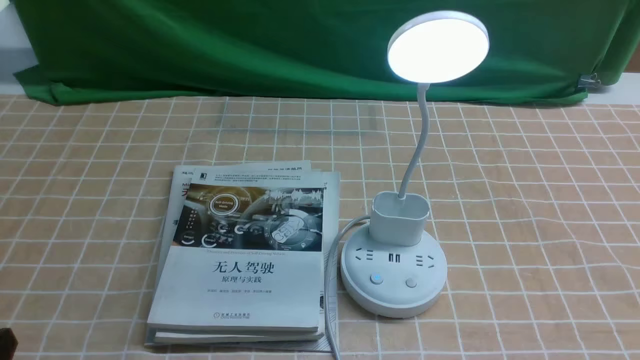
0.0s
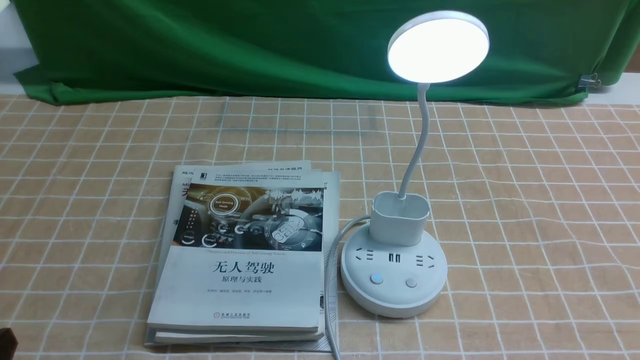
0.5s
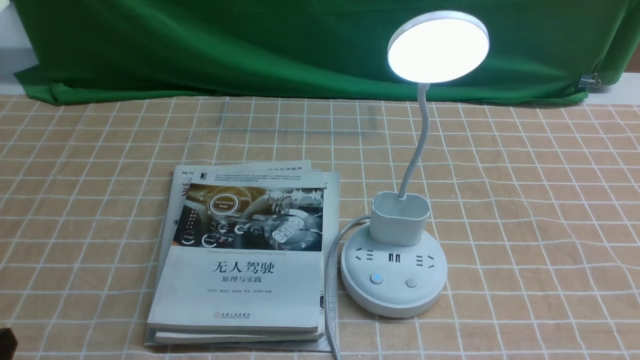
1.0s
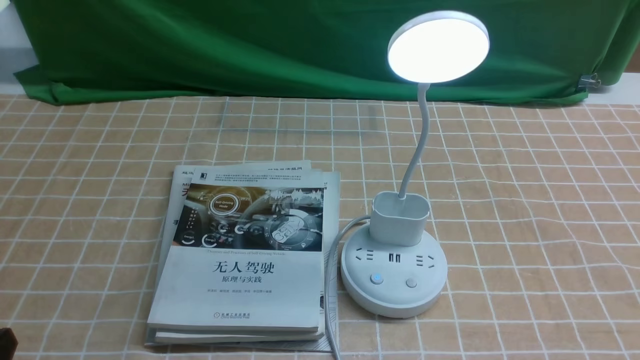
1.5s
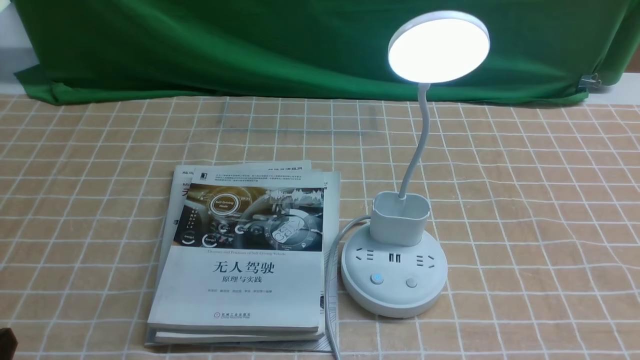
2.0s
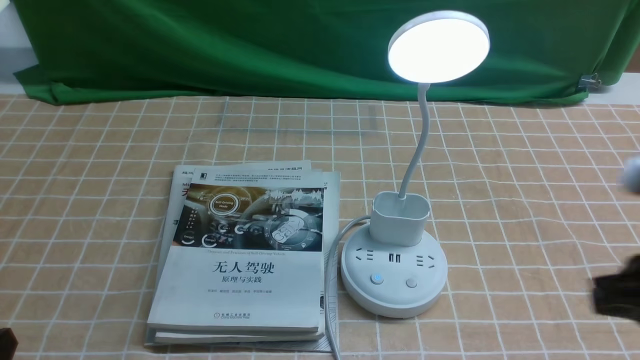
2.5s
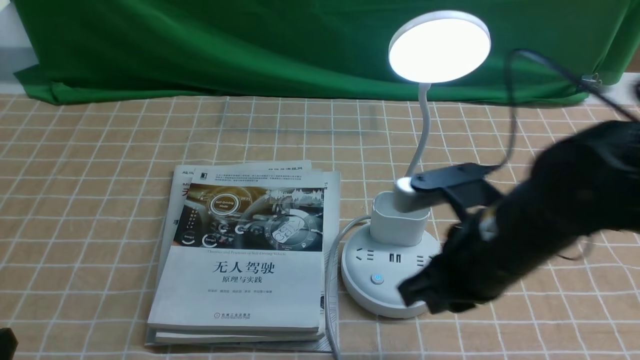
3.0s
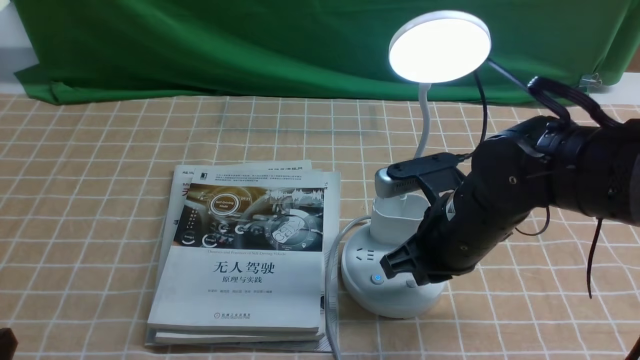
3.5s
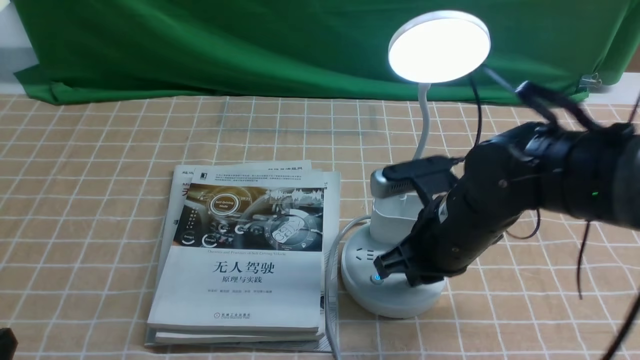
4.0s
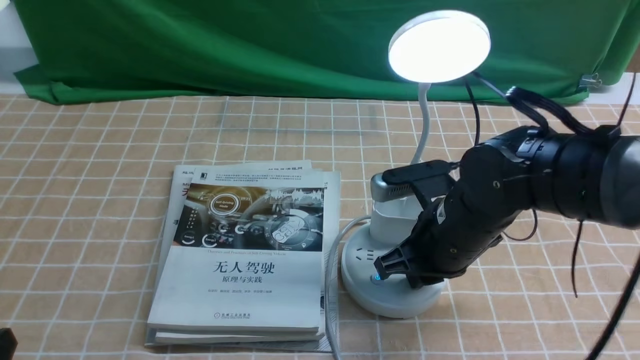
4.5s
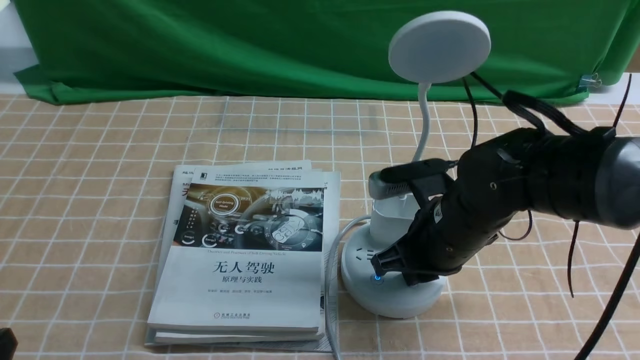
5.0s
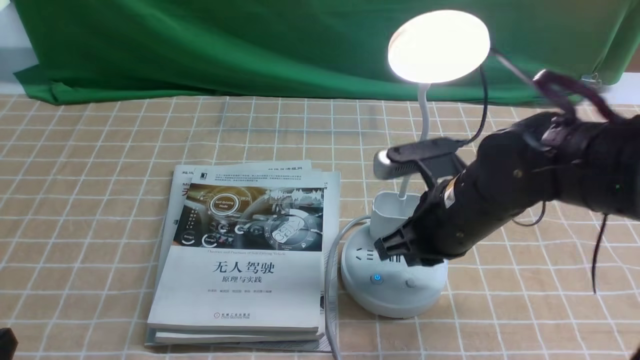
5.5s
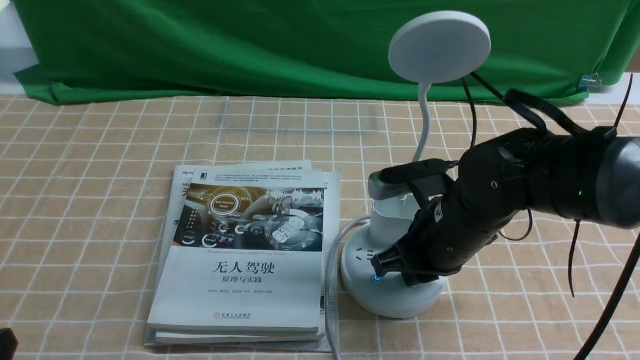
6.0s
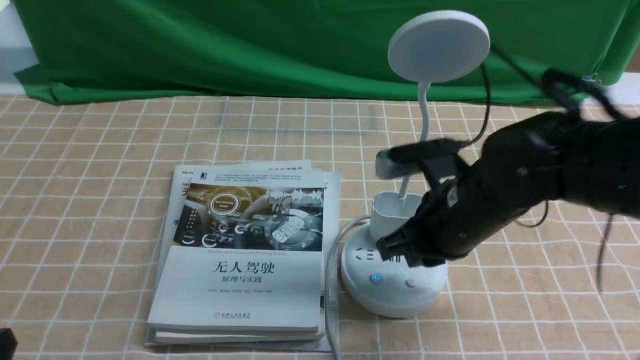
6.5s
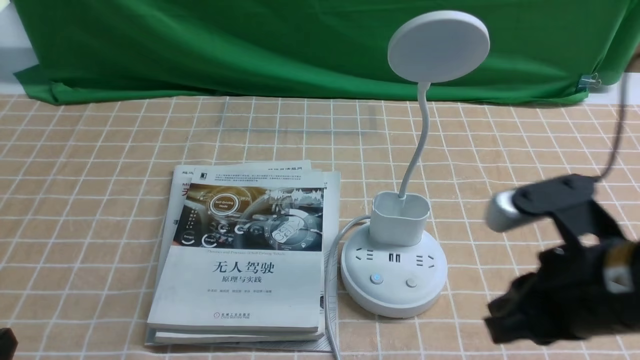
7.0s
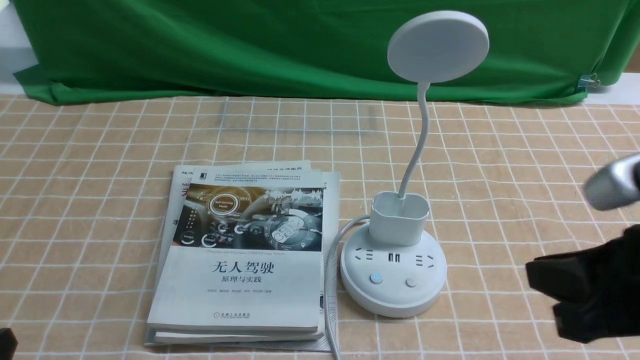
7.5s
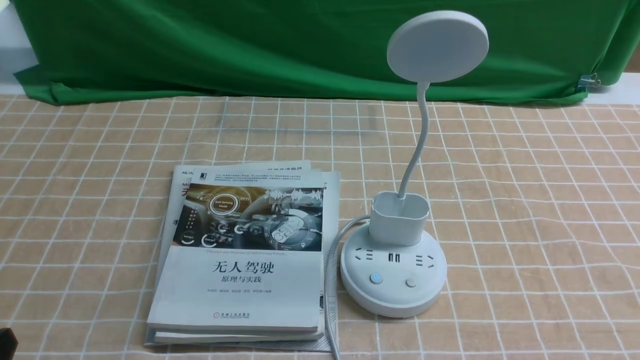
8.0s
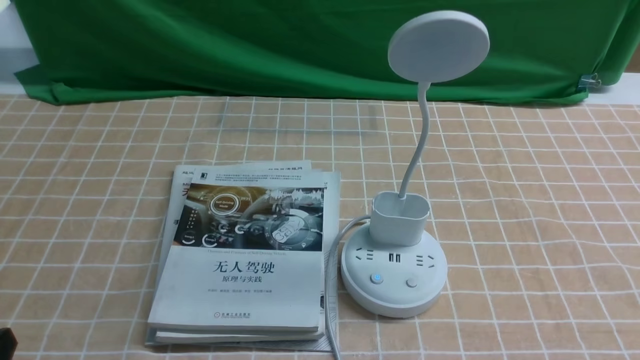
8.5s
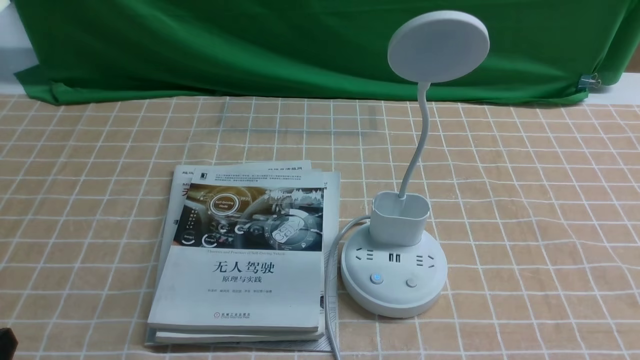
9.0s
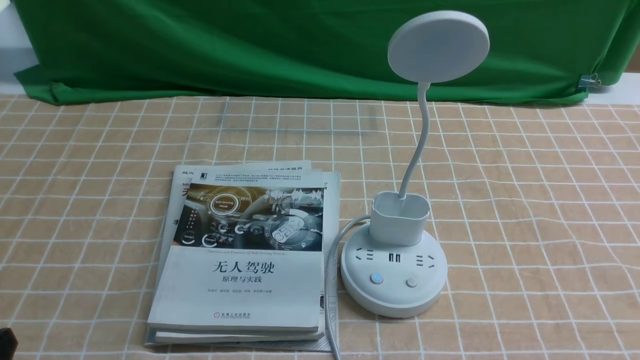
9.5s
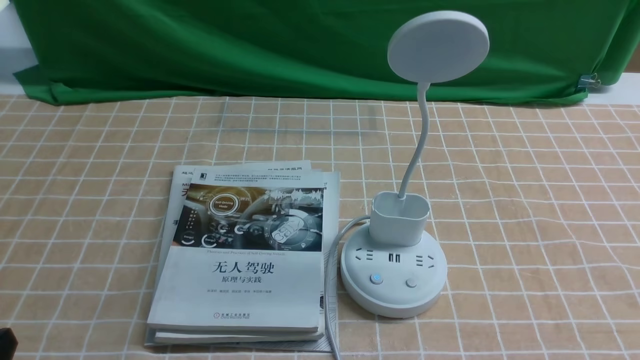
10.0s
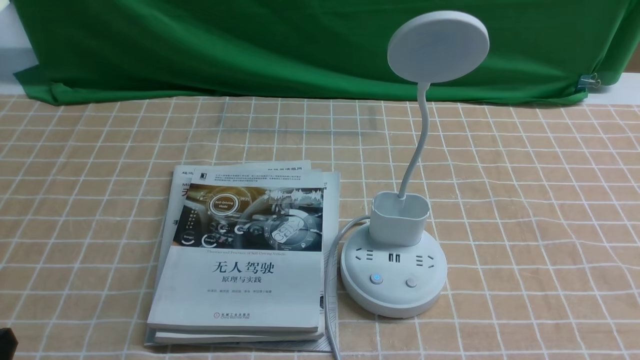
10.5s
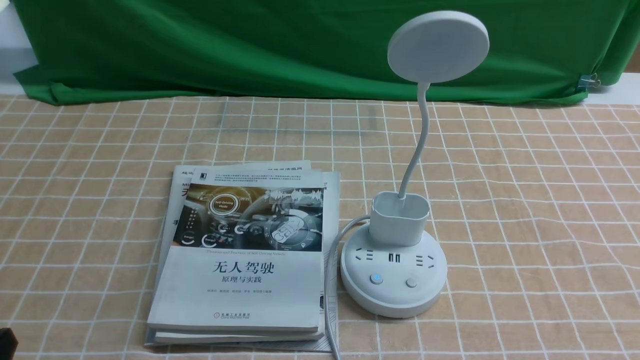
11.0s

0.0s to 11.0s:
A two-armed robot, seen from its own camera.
Task of the whole recording: turn off the desk lamp on the light coffee tablecloth by hand.
Step, 0.0s to 6.0s: use the right arm to press the button switch on the lamp holder.
2.0s to 3.5s: The right gripper goes approximately 25 cm forward and to the left.
3.5s to 5.5s: The grippers make only small movements.
5.5s to 7.5s: The right gripper shifts approximately 20 cm backward, to the right and upward.
7.5s to 9.0s: The right gripper heads downward, backward and to the right, covering some 15 cm.

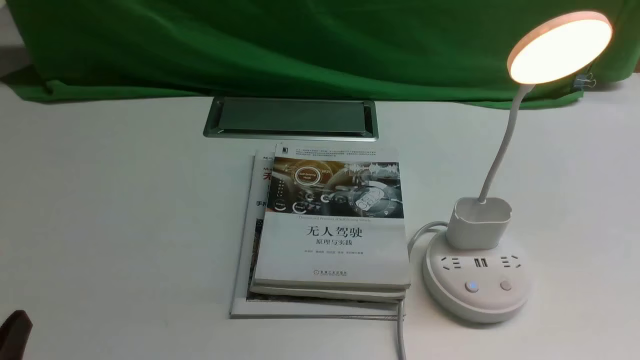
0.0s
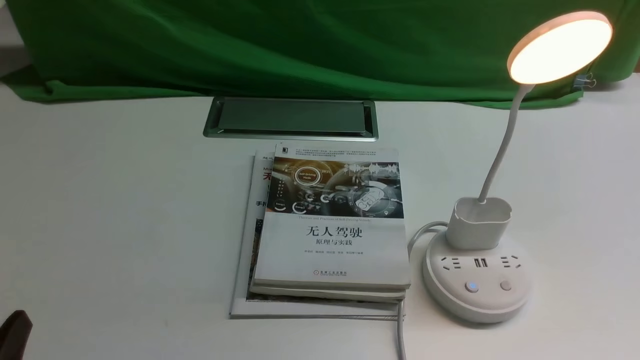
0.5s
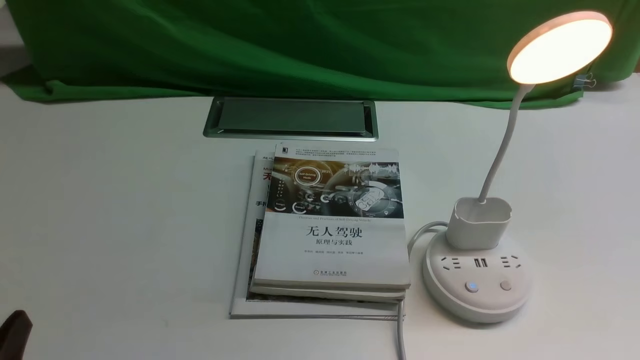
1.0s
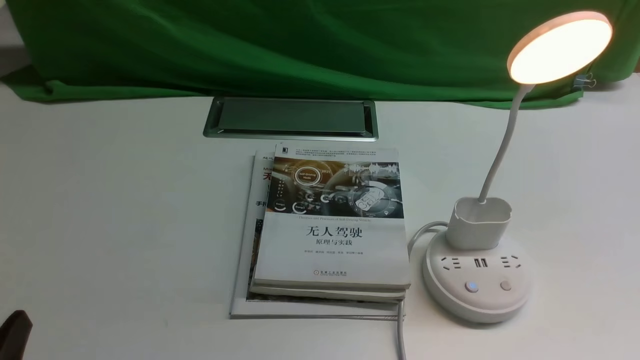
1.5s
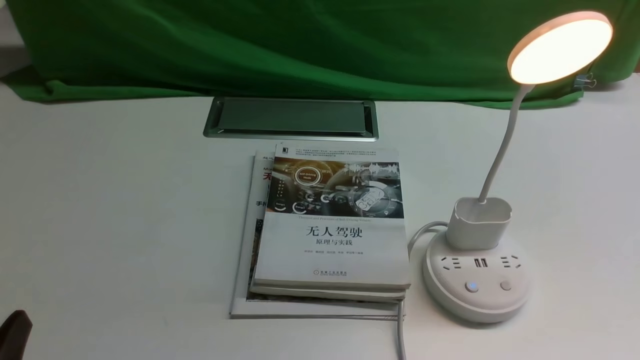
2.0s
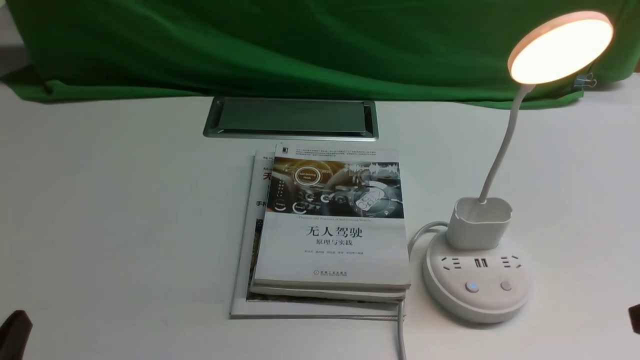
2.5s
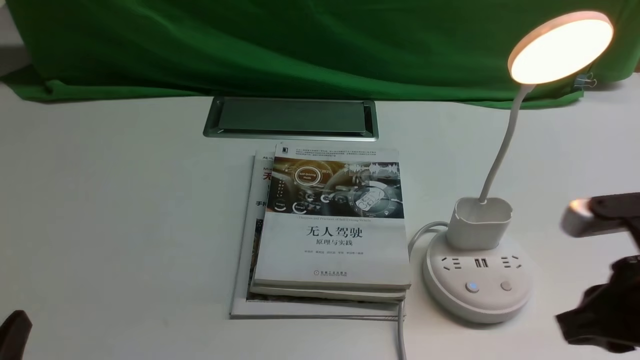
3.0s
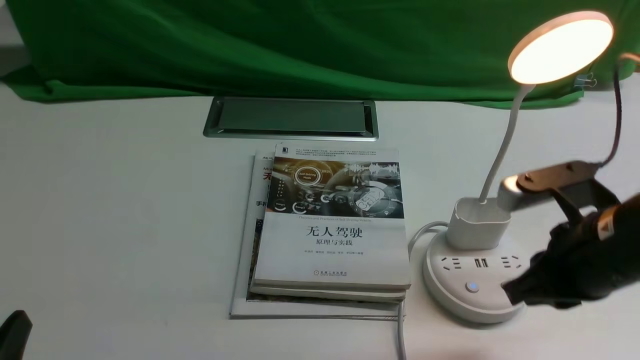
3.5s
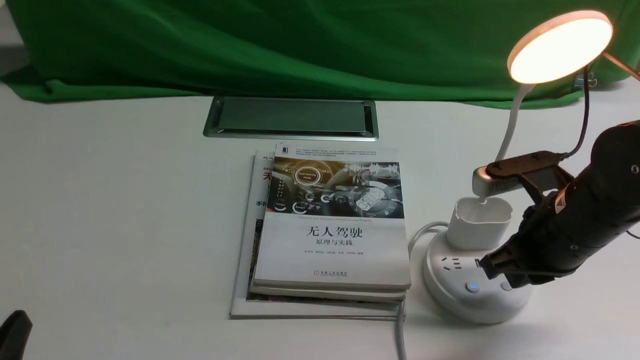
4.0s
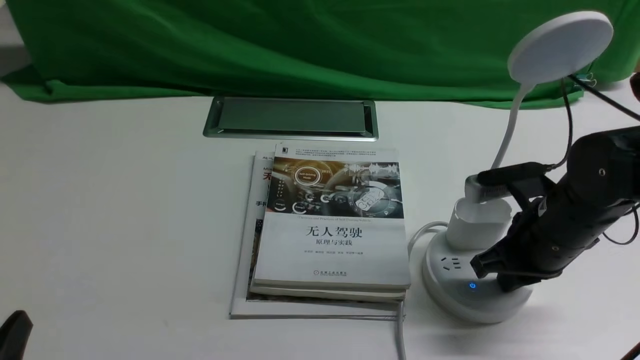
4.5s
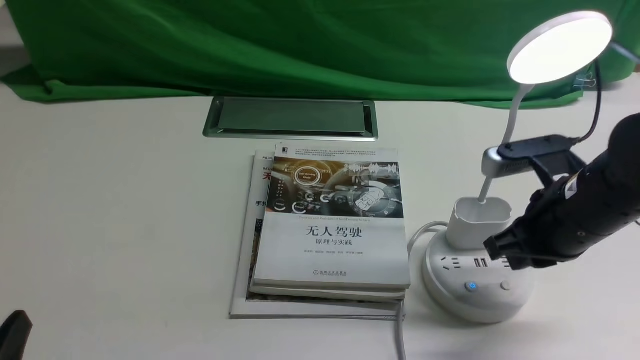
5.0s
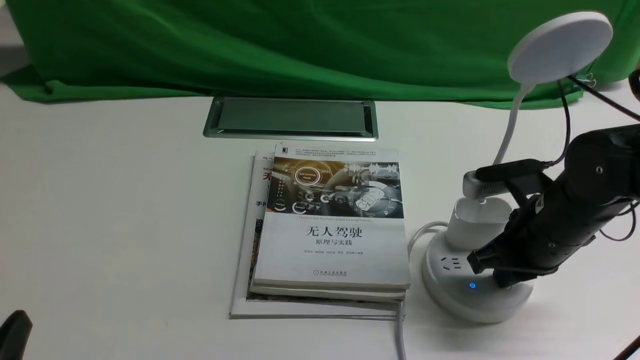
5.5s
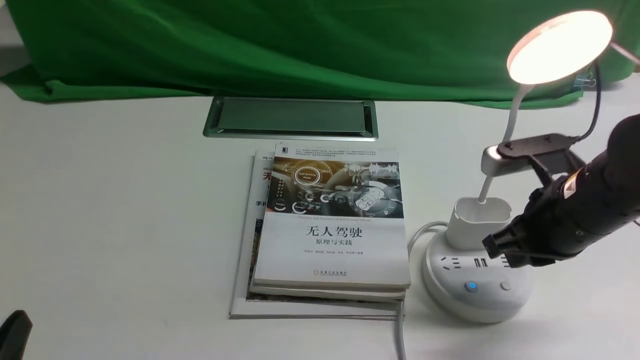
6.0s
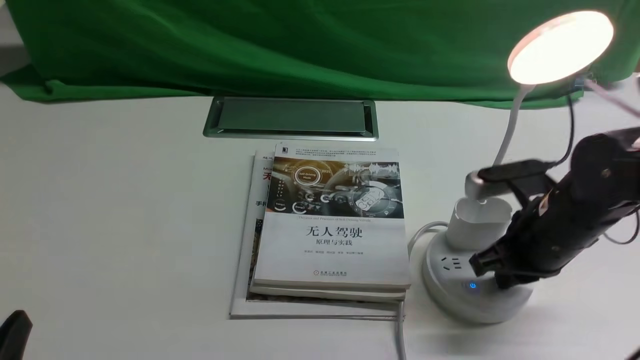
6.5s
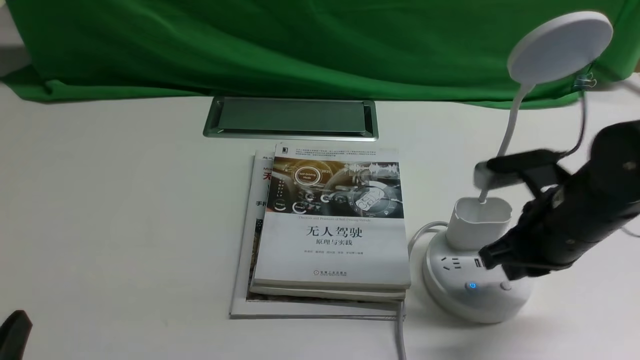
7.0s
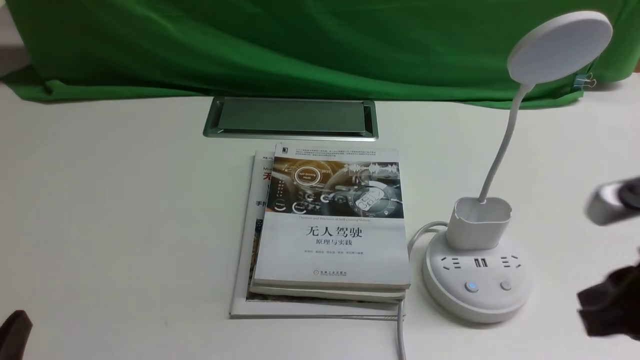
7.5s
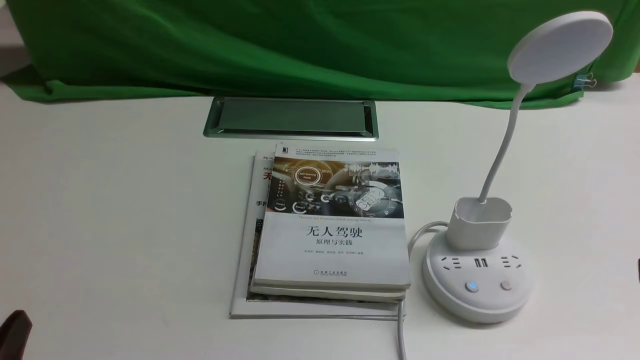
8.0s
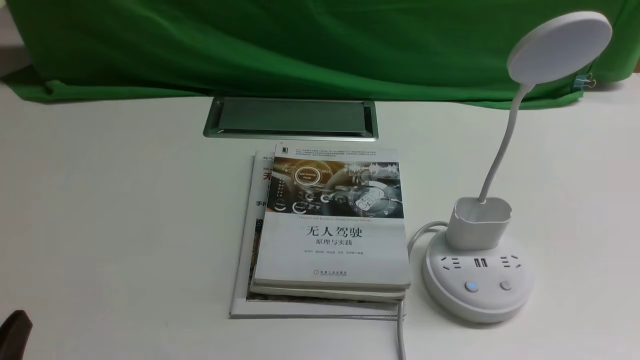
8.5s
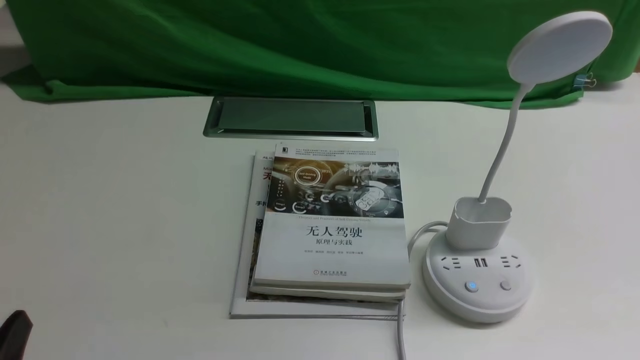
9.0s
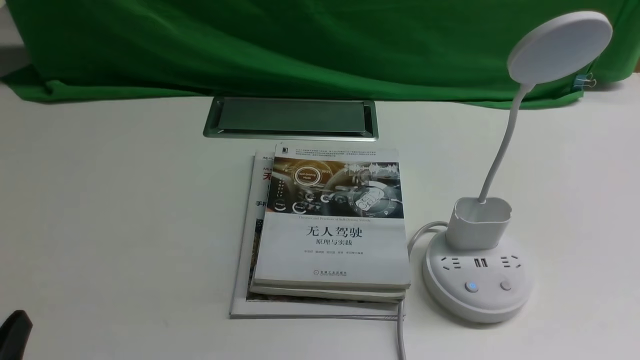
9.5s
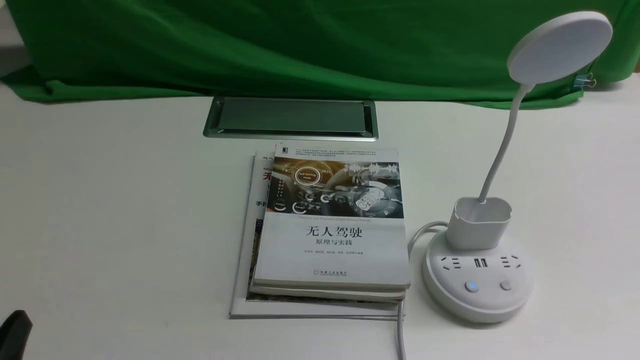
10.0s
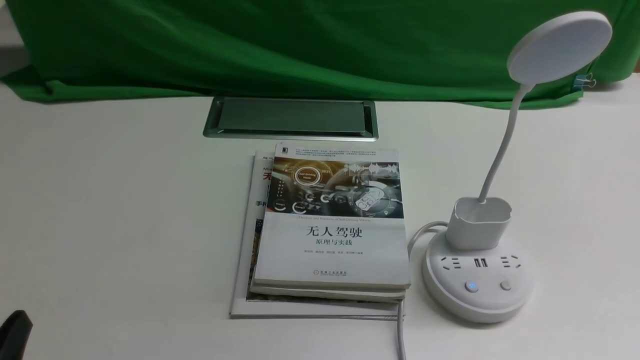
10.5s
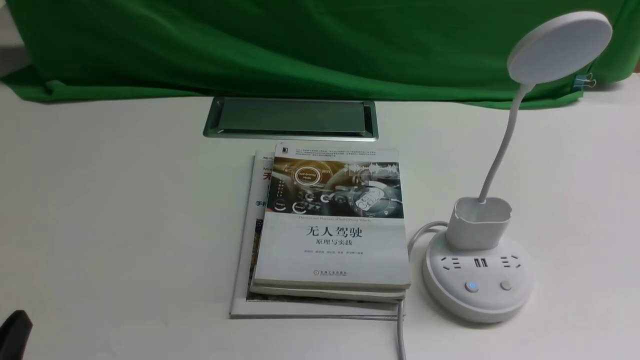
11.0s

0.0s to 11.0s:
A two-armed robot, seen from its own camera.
Task of the whole recording: turn off the desk lamp on the white desktop by hand.
Step, 0.0s to 7.0s: use the right arm to press the button switch on the lamp holder.
2.0s to 3.5s: The right gripper heads forward and to the left, covering about 15 cm, and closes up.
3.5s to 5.5s: The right gripper goes about 5 cm forward.
5.5s to 7.5s: The right gripper heads backward and upward, covering roughly 15 cm, and opens its fingers.
7.5s to 9.0s: The right gripper heads backward, downward and to the right, covering roughly 15 cm.
